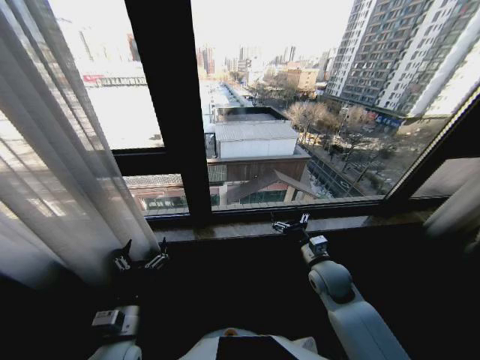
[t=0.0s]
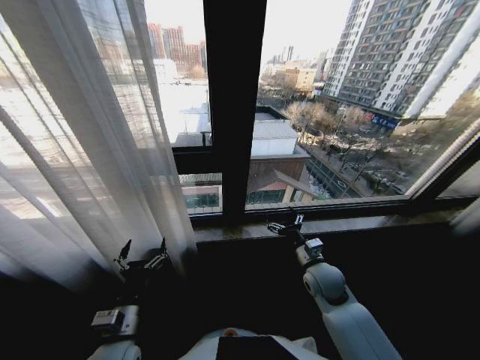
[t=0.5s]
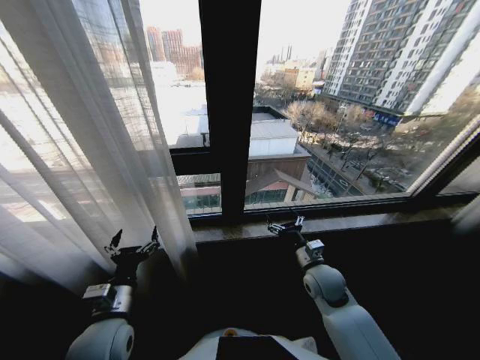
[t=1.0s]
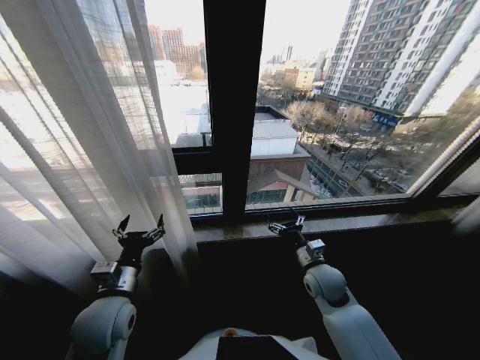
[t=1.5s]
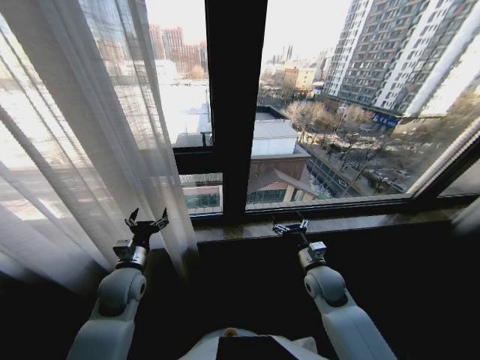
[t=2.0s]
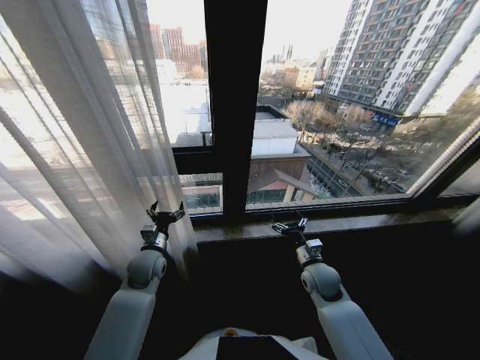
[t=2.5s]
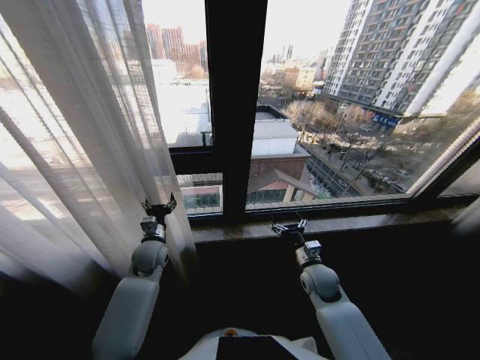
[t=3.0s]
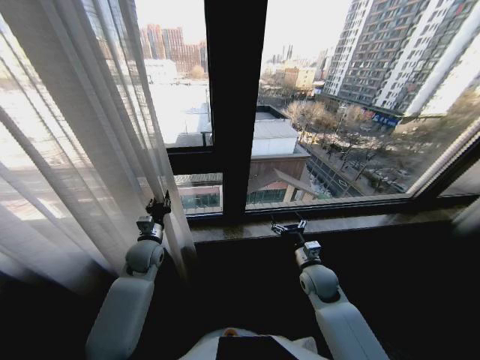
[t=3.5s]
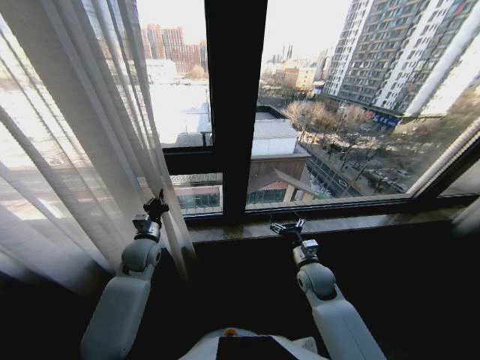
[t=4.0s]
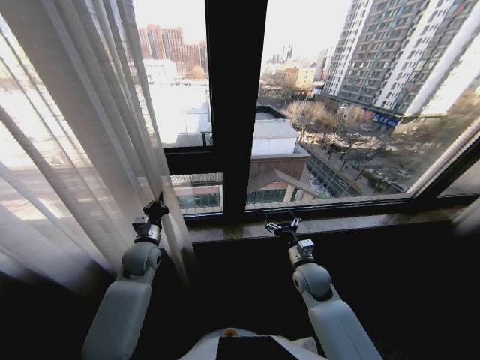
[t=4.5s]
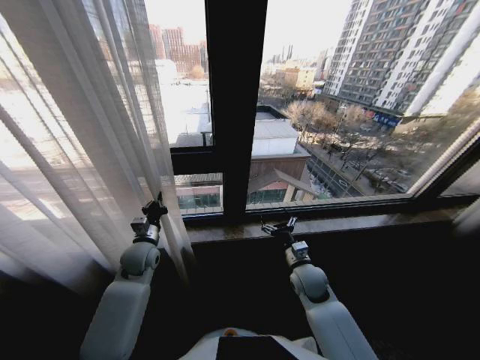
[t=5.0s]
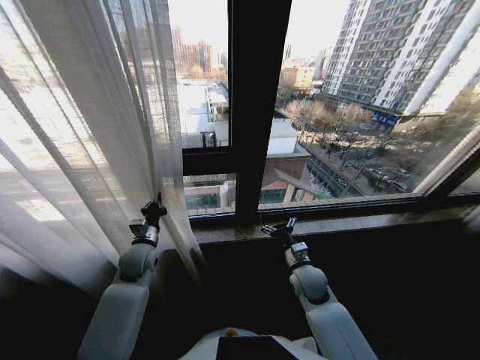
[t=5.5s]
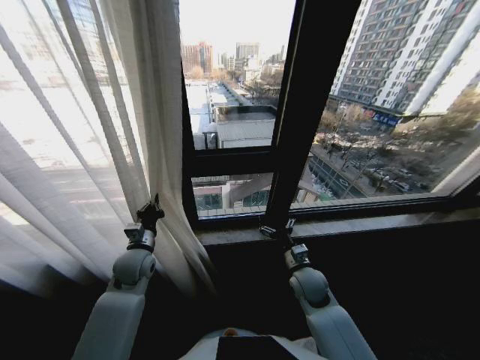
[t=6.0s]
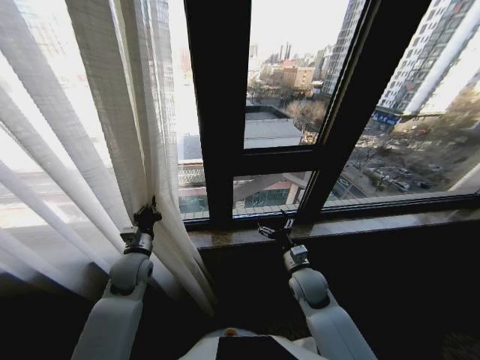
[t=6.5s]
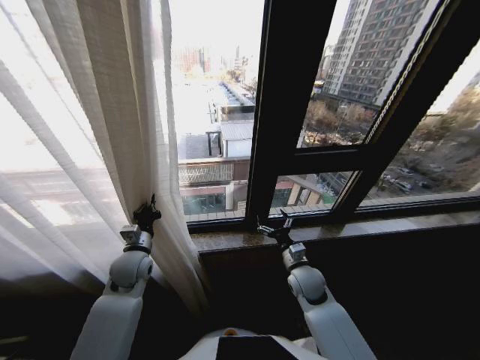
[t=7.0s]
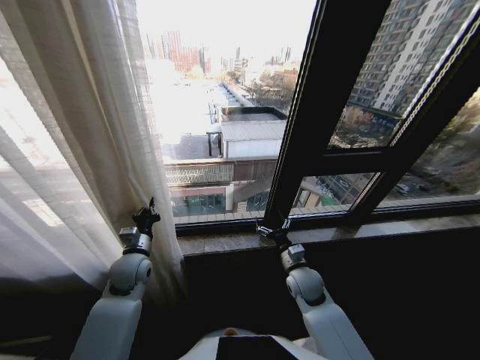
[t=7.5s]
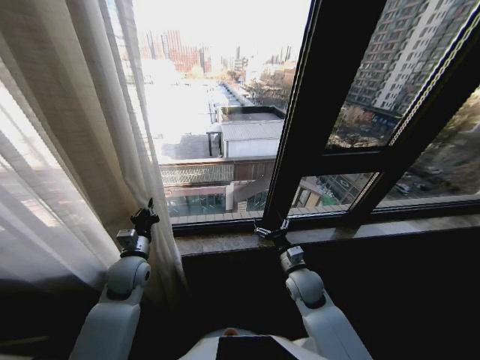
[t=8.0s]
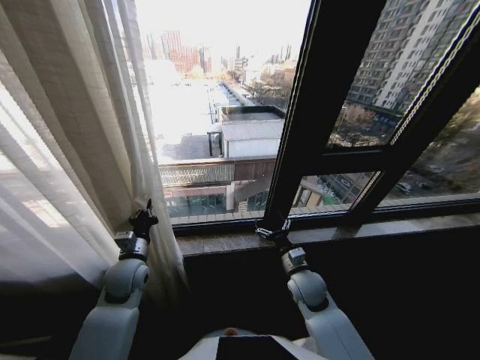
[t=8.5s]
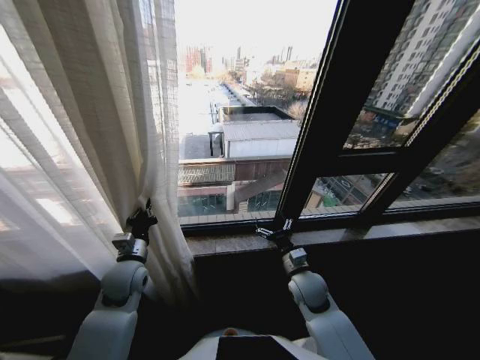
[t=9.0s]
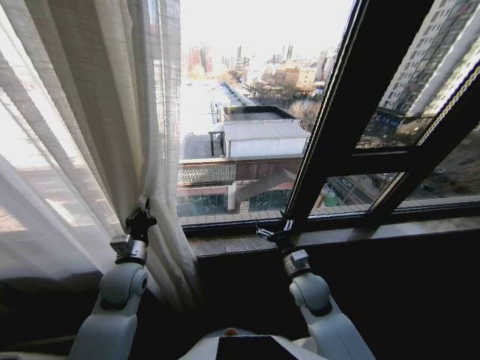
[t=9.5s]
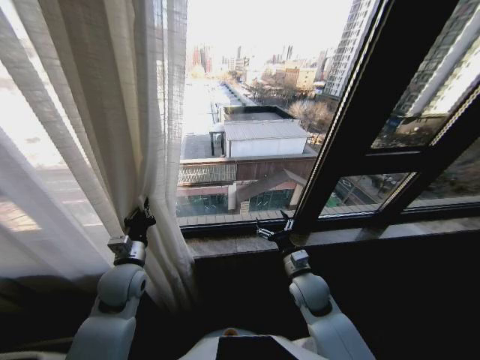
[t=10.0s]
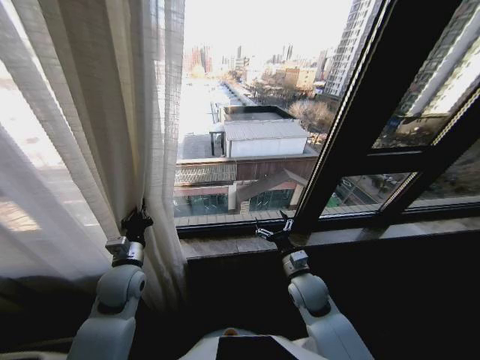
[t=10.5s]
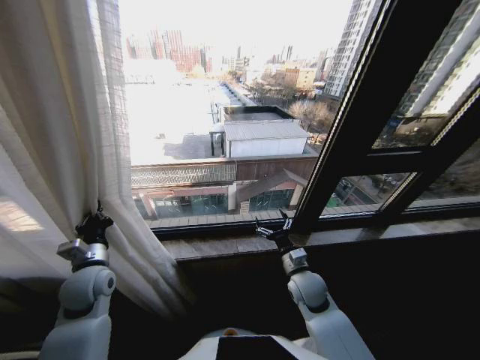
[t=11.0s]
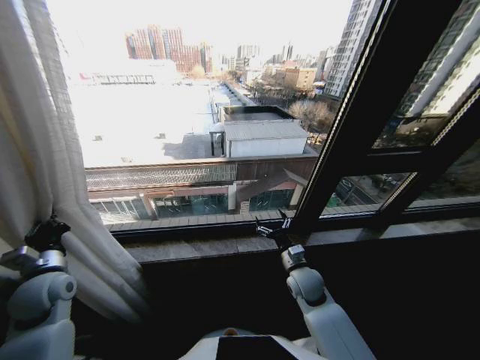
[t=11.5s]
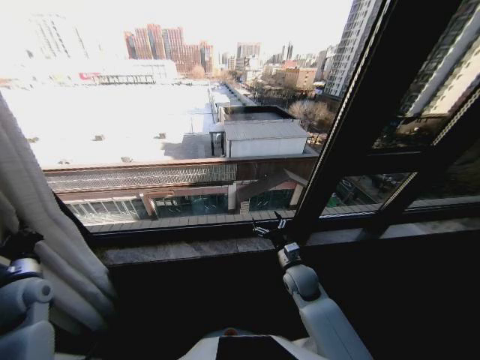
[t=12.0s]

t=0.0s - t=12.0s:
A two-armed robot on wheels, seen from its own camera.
Task of the whole recording: Open the curtains by pulling them apart, changing their state from closed to fully open.
t=0.0s - t=2.0s: The left gripper travels forward by approximately 15 cm.
t=2.0s - t=4.0s: The left gripper shifts approximately 10 cm forward, and closes up.
t=10.0s - t=12.0s: The left gripper shifts roughly 20 cm to the left; the right gripper moves some 5 cm.

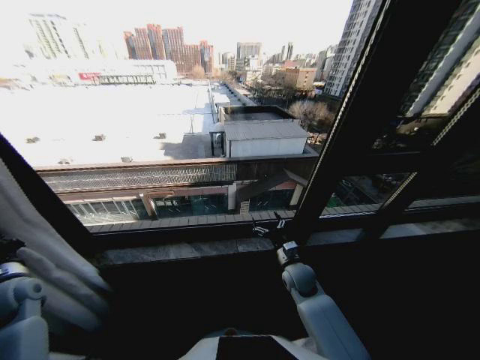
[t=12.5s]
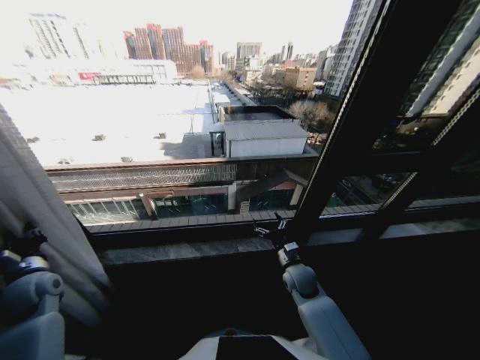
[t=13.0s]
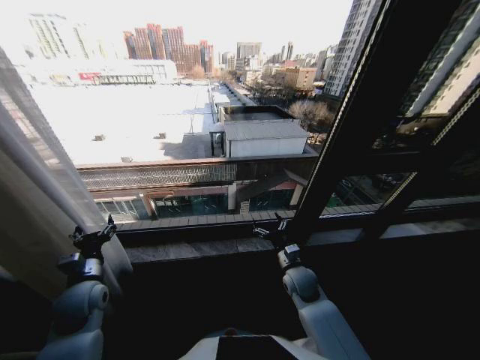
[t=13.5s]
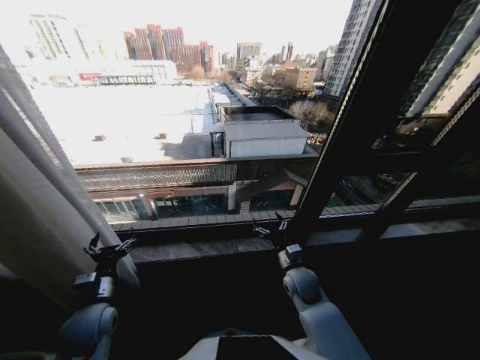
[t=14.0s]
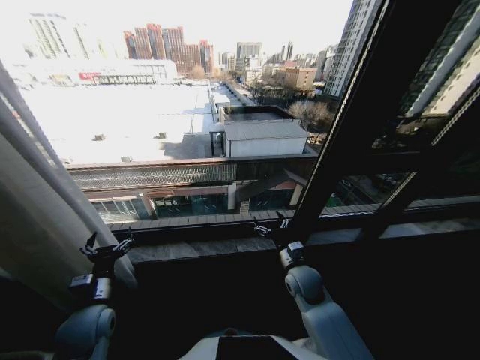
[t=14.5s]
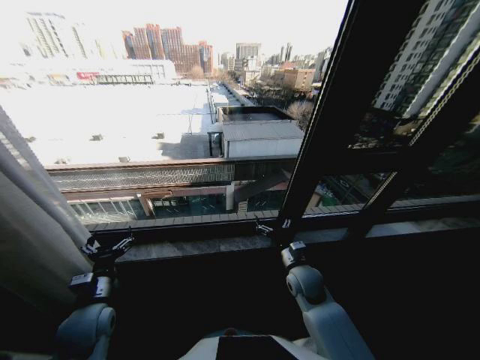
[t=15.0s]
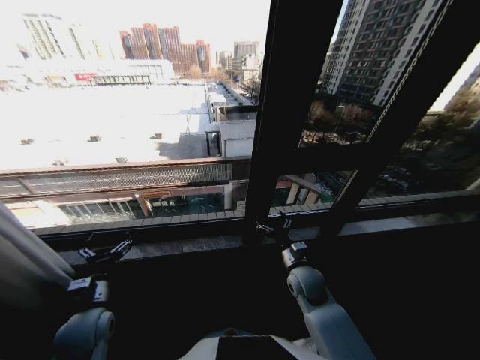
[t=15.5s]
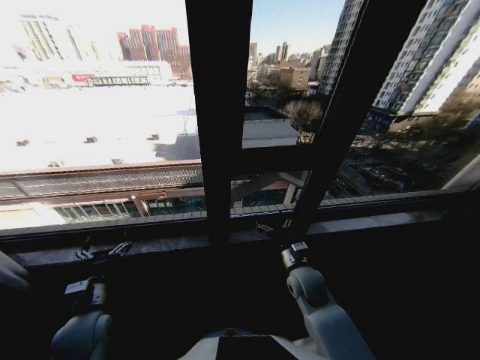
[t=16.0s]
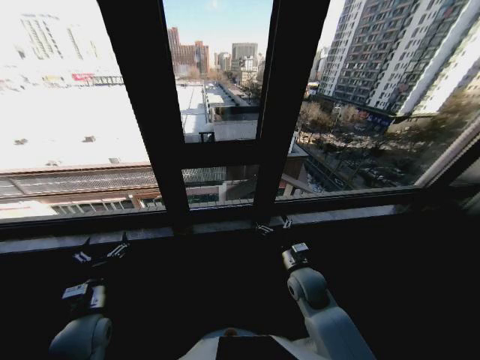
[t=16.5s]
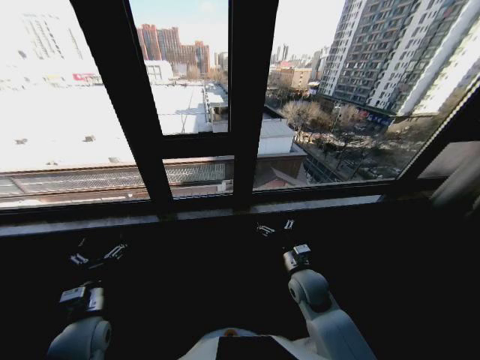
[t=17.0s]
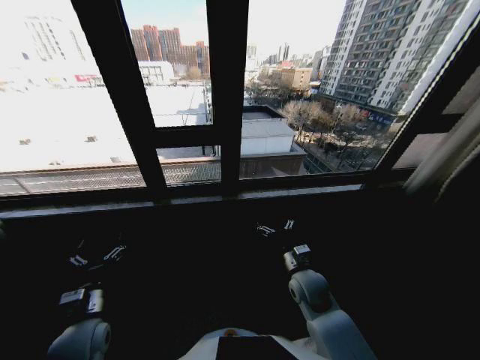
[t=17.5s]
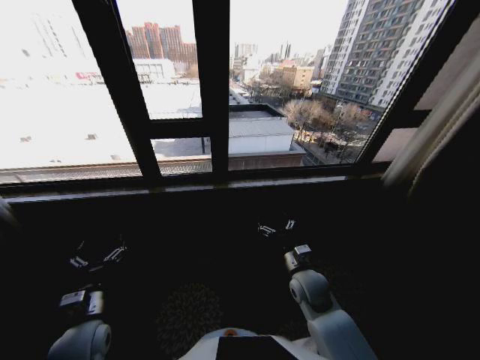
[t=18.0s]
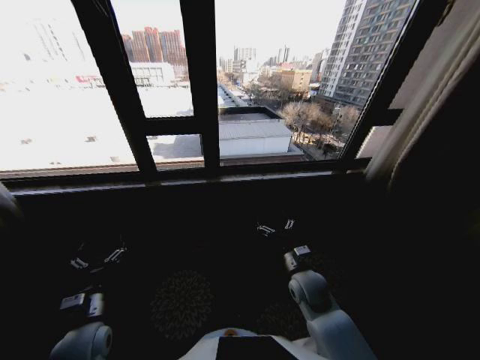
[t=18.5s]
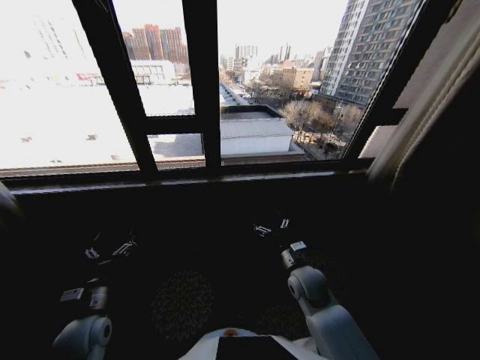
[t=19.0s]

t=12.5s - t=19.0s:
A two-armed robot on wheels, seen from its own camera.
Task of the whole recording: Open the curtains by pulling them apart, changing their state from closed to fully open.
t=12.5s - t=14.5s: The left gripper goes approximately 20 cm to the right, and opens its fingers.

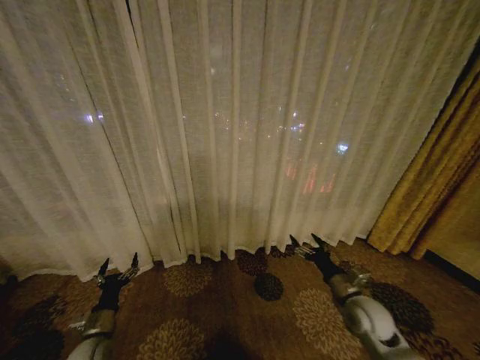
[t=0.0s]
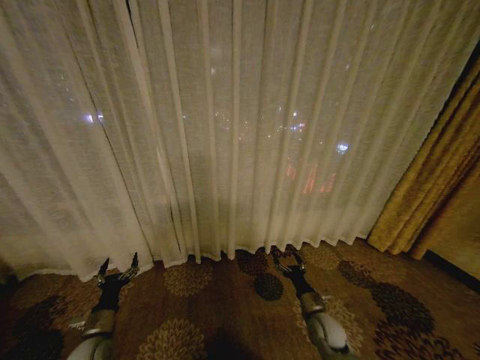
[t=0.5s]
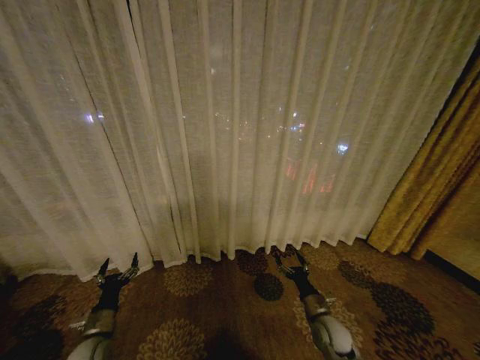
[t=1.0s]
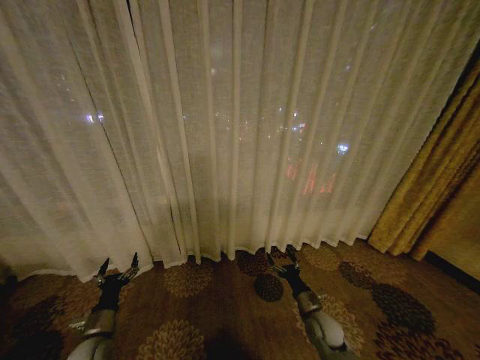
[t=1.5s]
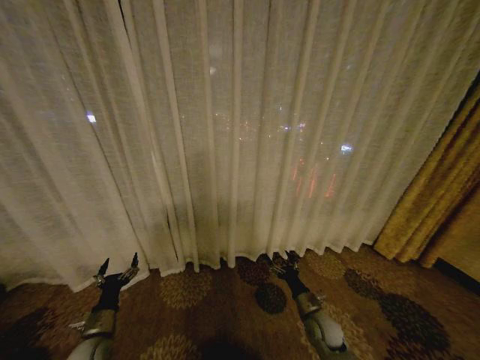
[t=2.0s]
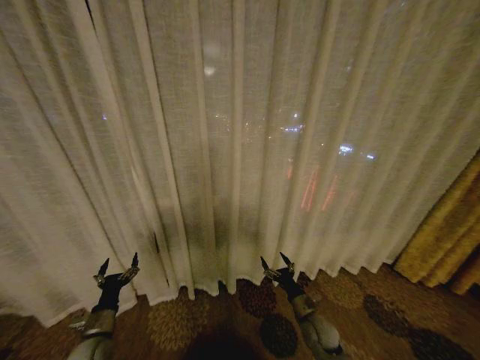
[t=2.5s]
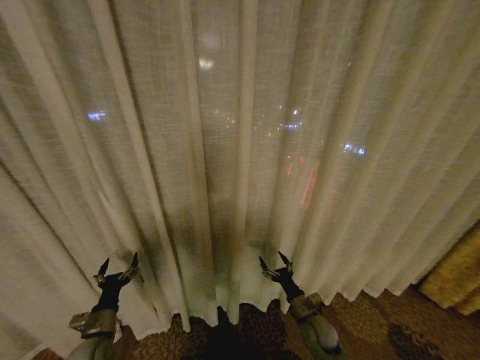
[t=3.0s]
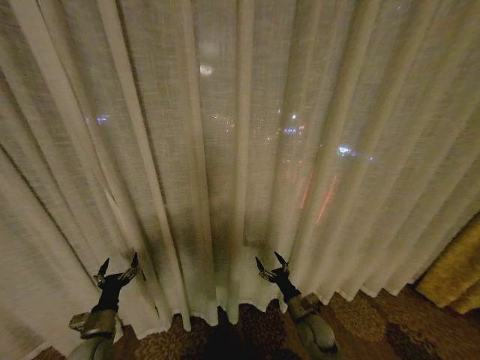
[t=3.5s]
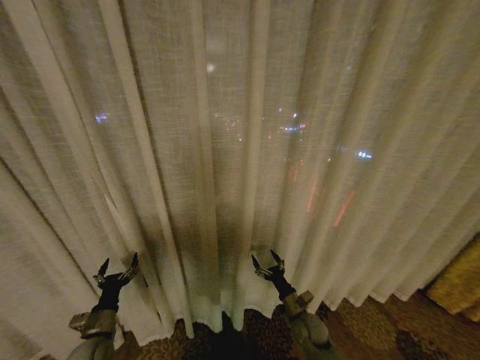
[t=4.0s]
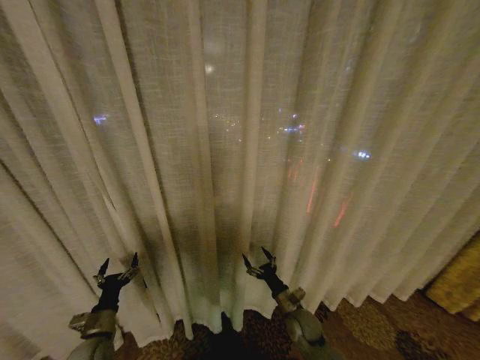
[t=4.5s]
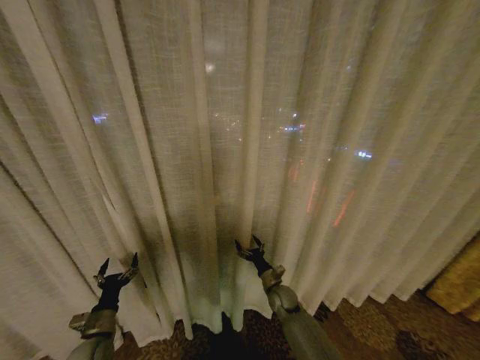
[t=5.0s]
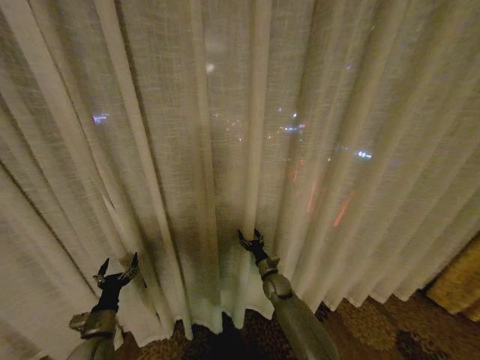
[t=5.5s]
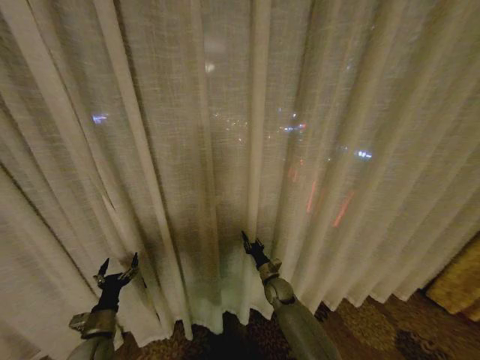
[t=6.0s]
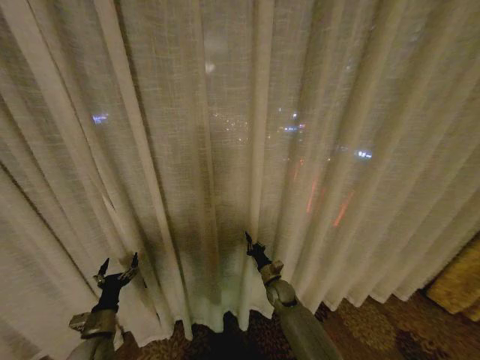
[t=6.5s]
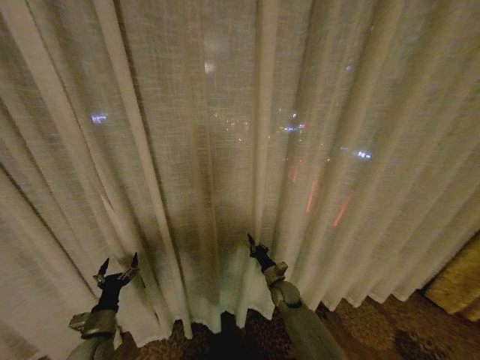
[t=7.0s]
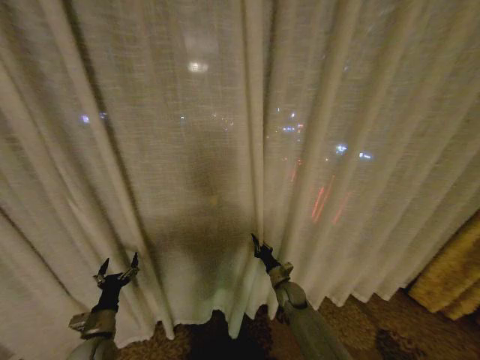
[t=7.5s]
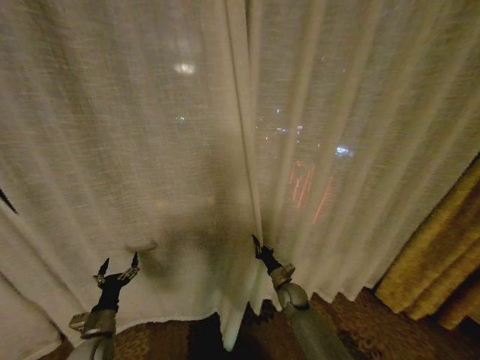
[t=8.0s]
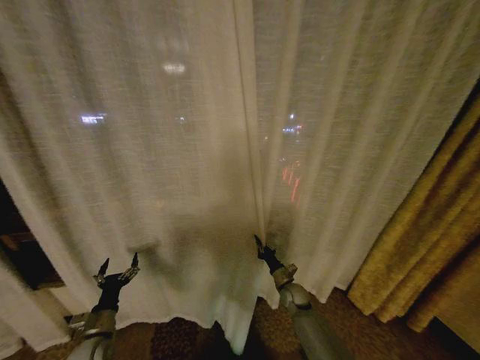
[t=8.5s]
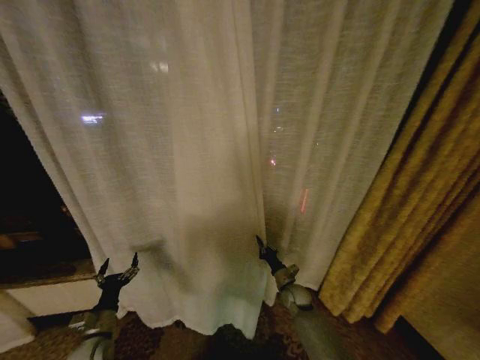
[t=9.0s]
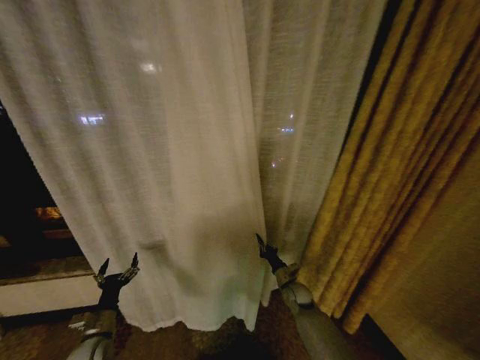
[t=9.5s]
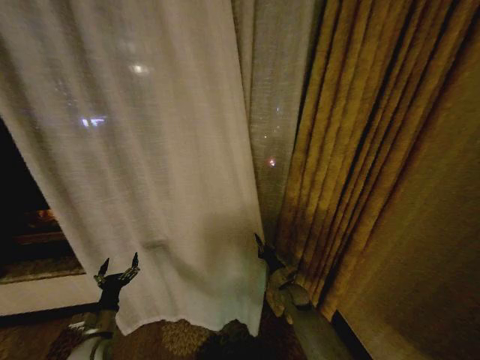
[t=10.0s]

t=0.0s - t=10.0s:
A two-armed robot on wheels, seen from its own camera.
Task of the whole recording: Open the curtains by pulling them apart, changing their state from closed to fully open.
t=4.0s - t=6.0s: The right gripper shifts some 15 cm forward and to the left, and closes its fingers.
t=6.0s - t=8.0s: The right gripper shifts by some 5 cm.
